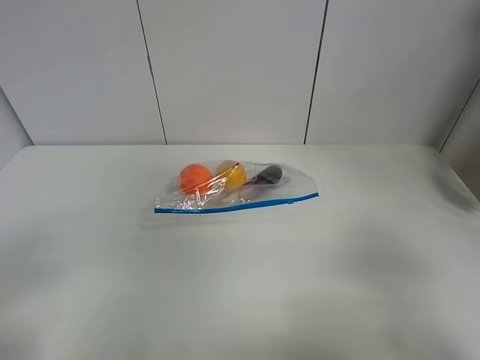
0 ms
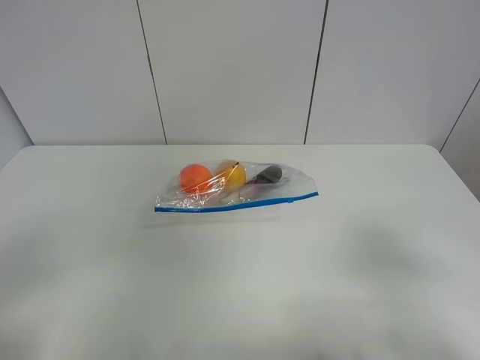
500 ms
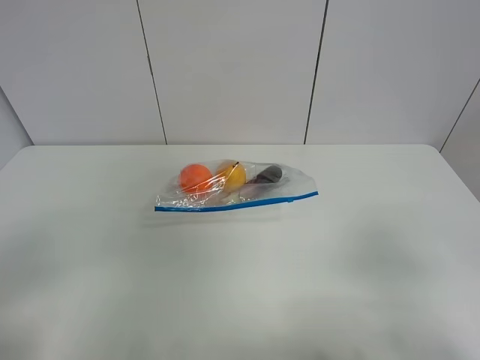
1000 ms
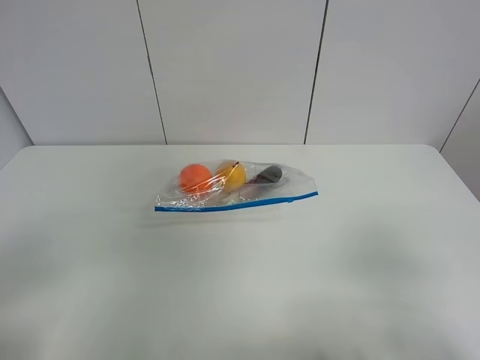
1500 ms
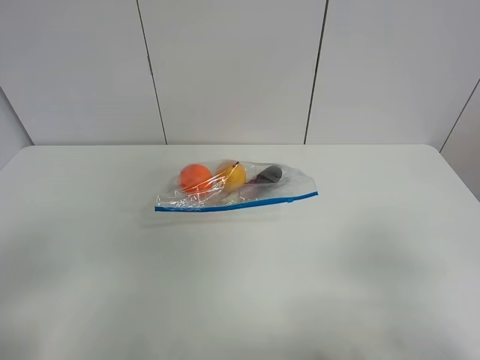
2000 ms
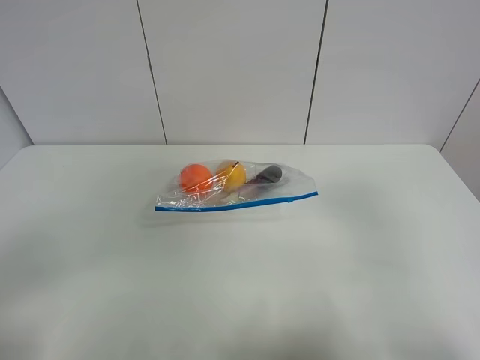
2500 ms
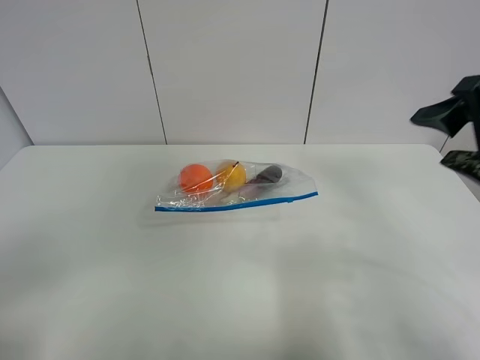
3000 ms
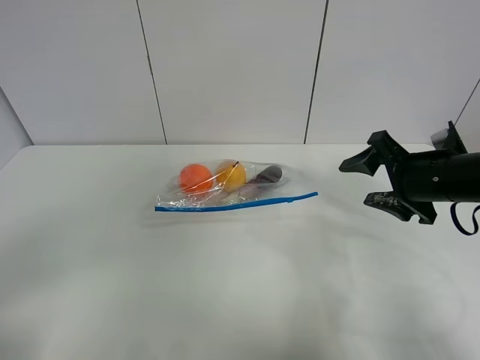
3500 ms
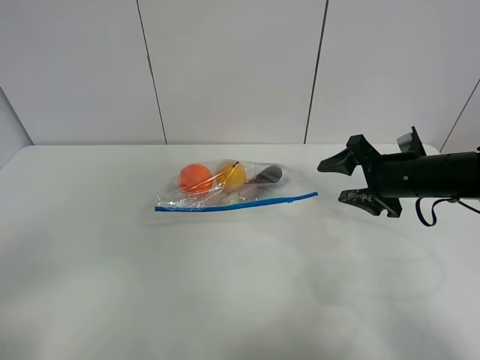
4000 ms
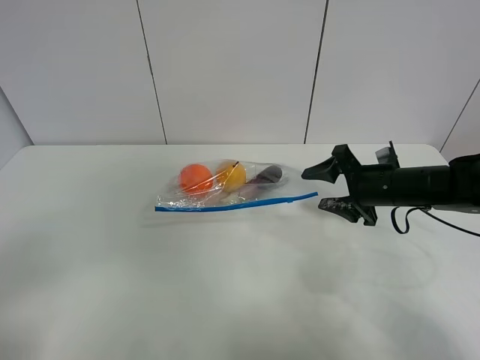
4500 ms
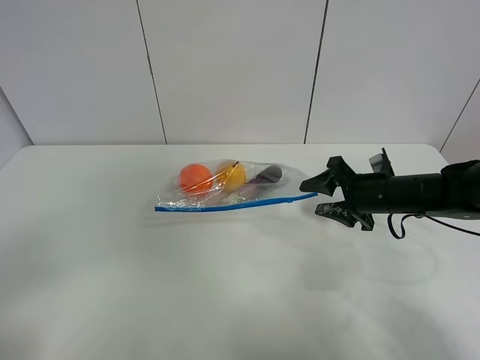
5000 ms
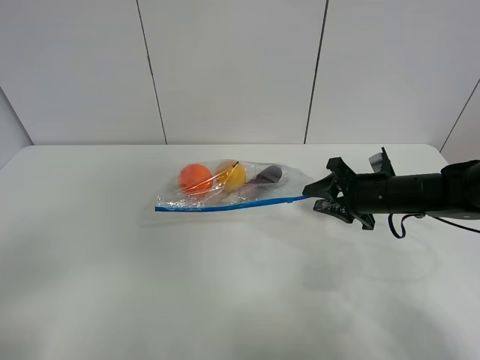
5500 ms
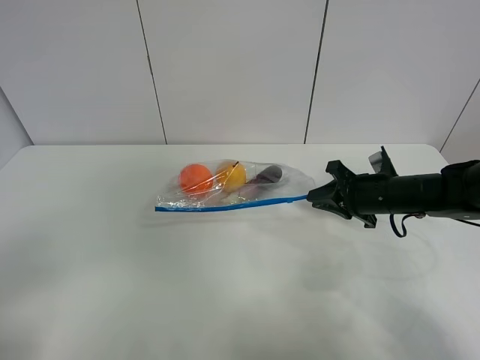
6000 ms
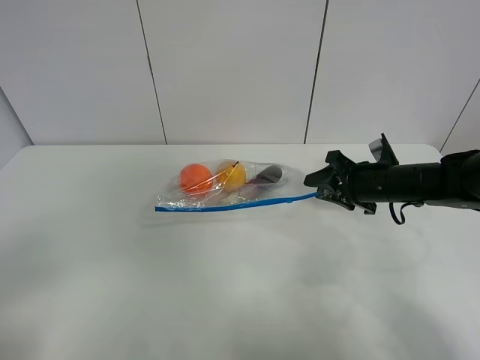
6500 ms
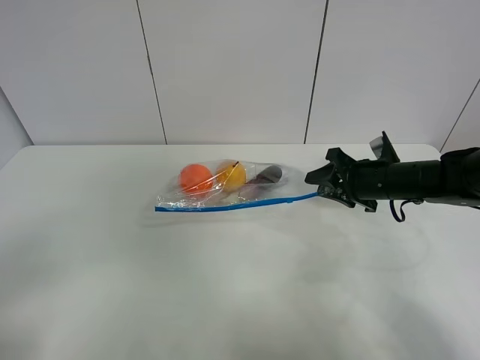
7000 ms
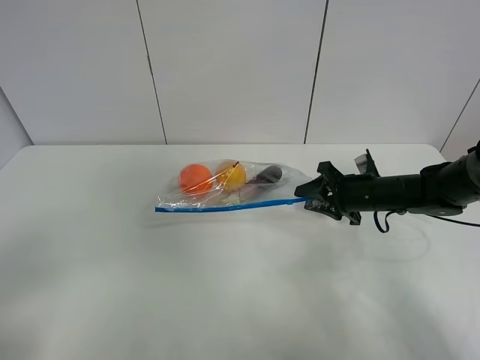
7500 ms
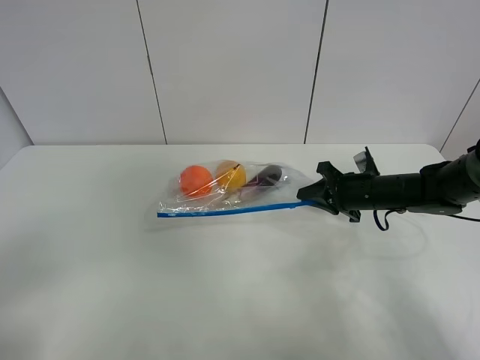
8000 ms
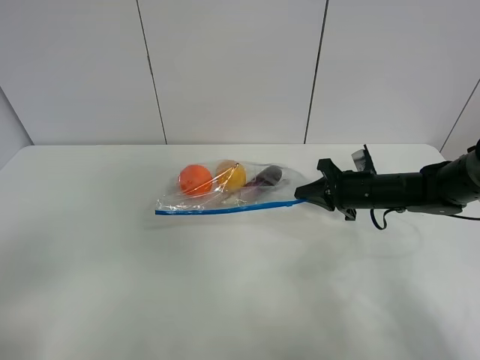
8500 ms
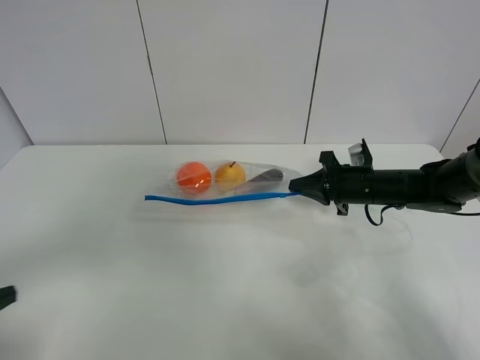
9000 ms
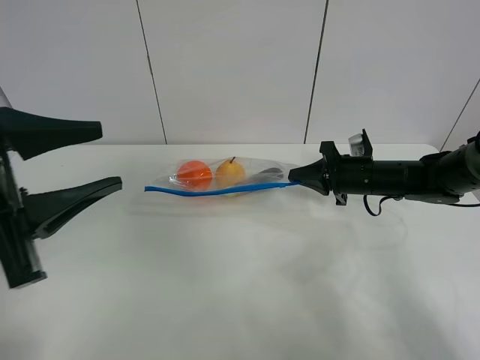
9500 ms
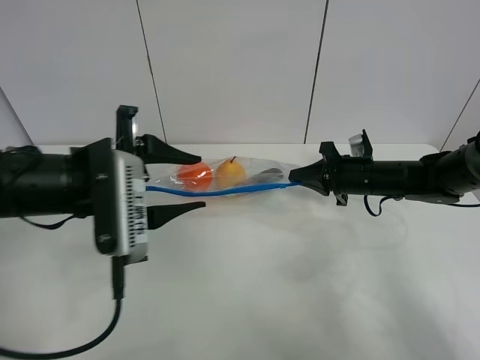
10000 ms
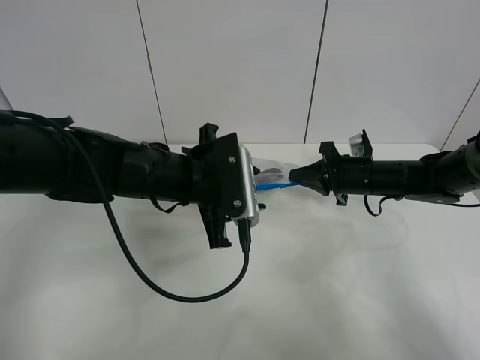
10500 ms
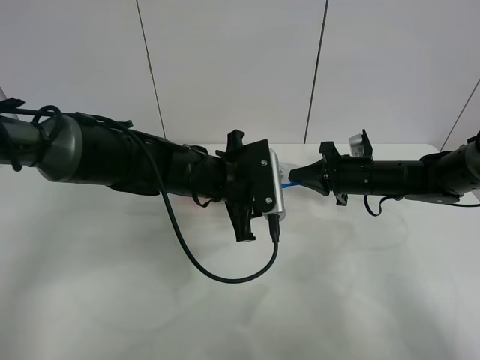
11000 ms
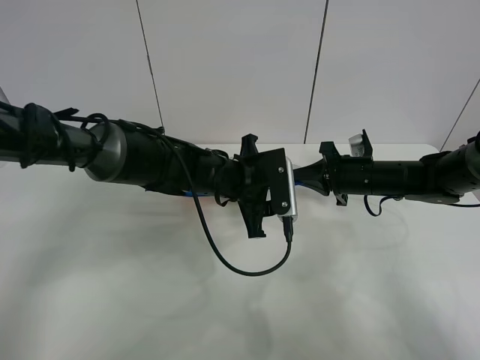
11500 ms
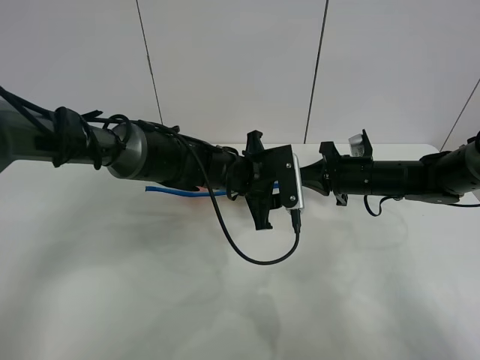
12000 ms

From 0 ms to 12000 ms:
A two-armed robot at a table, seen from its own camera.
Step, from 0 ms to 8000 ms: Grasp the fruit bag with right gripper.
From 2000 ms to 4000 ms: The right gripper heads forward, covering about 30 cm.
From 4000 ms to 6000 ms: The right gripper changes place by roughly 5 cm, and closes up.
From 6000 ms to 8000 ms: The grippers make only small movements.
From 8000 ms to 10000 ms: The left gripper shifts approximately 30 cm forward and to the right.
From 10000 ms to 12000 ms: The left gripper goes approximately 20 cm to the right, forward and downward.

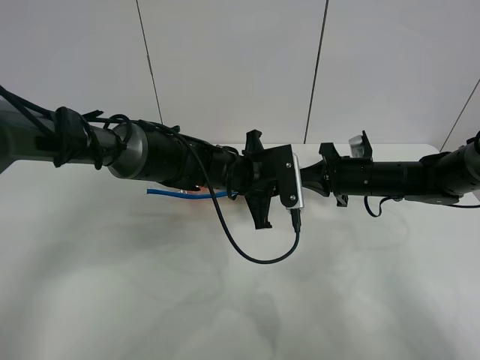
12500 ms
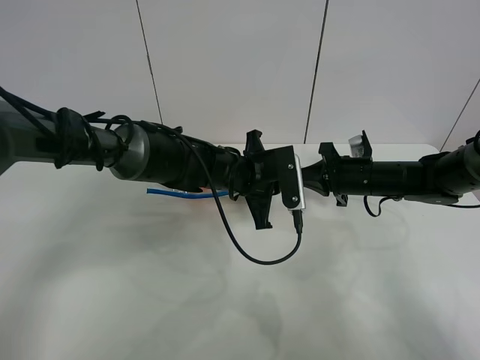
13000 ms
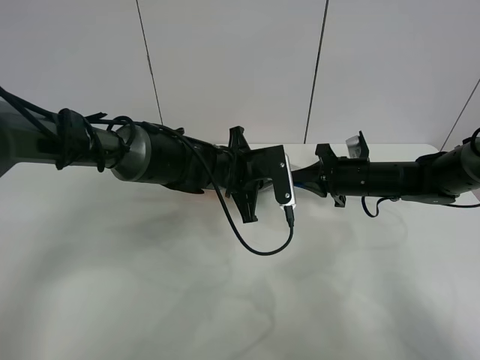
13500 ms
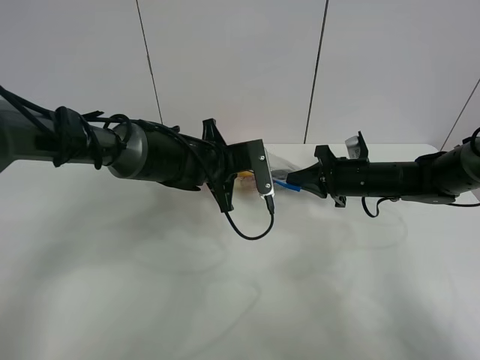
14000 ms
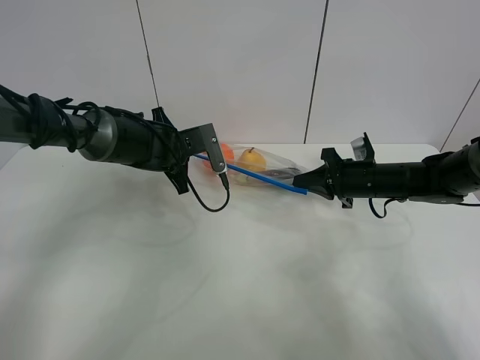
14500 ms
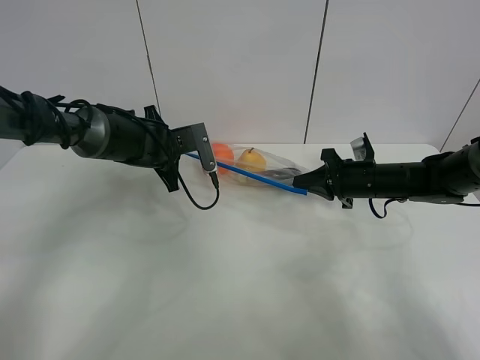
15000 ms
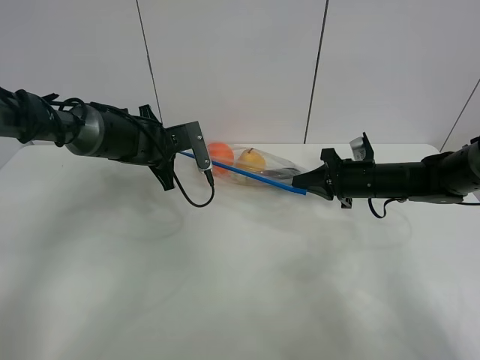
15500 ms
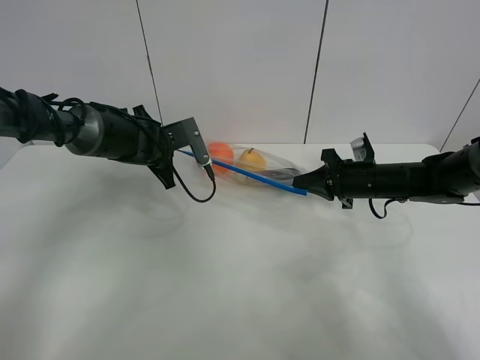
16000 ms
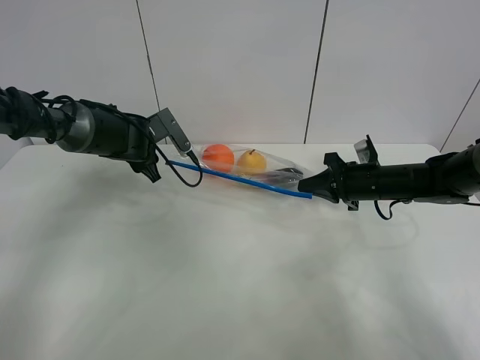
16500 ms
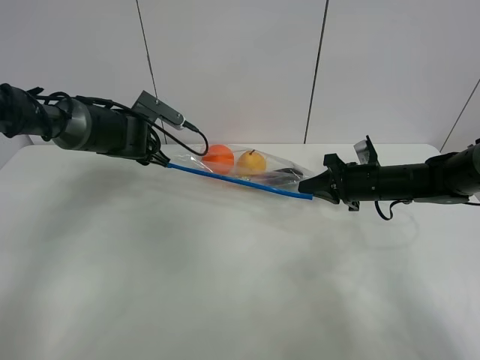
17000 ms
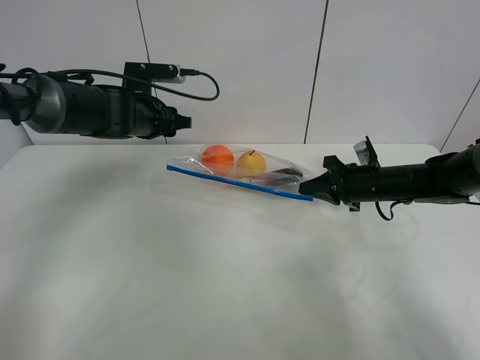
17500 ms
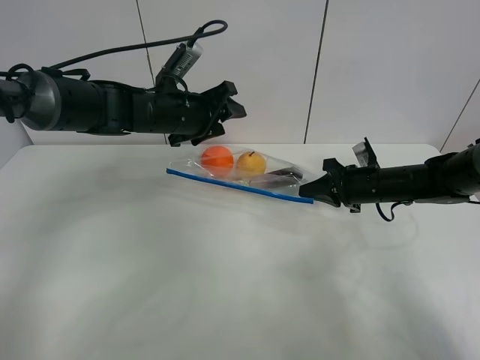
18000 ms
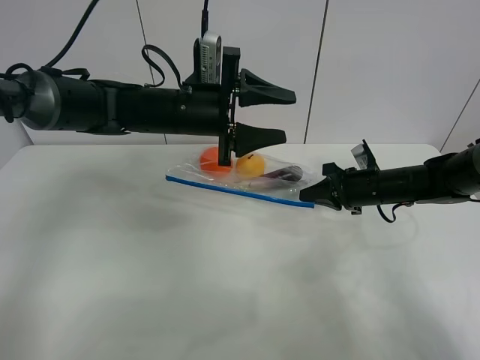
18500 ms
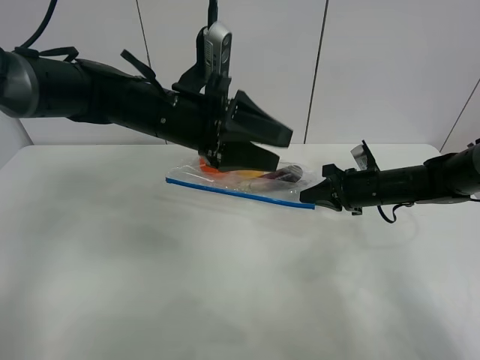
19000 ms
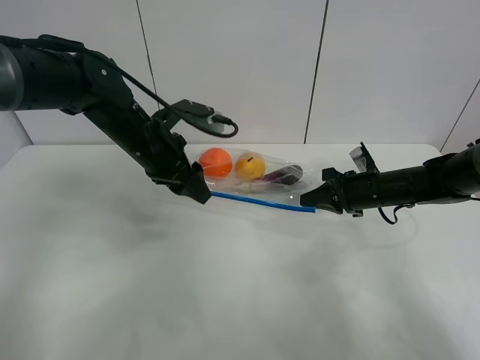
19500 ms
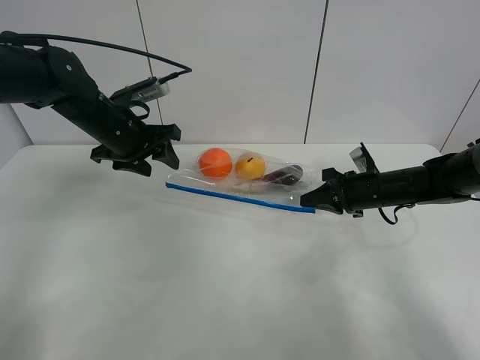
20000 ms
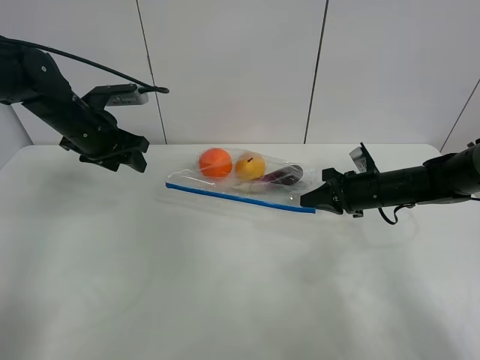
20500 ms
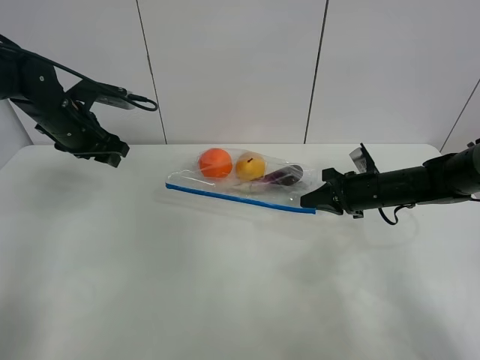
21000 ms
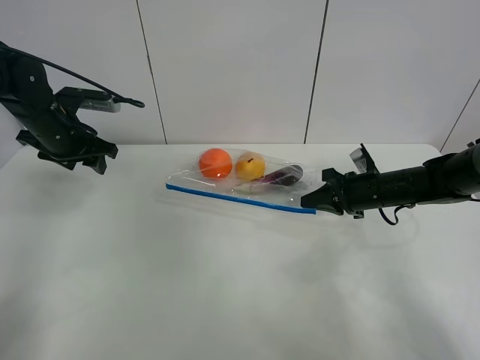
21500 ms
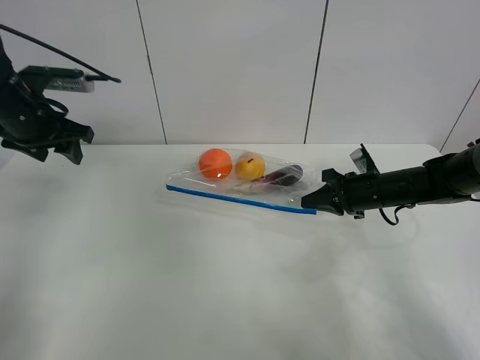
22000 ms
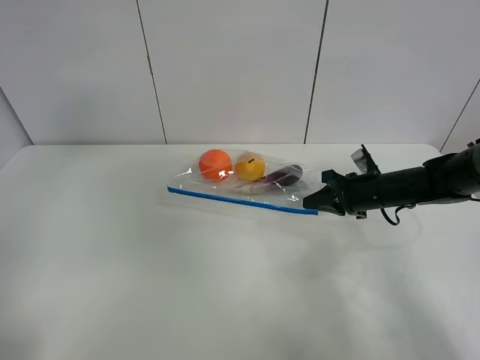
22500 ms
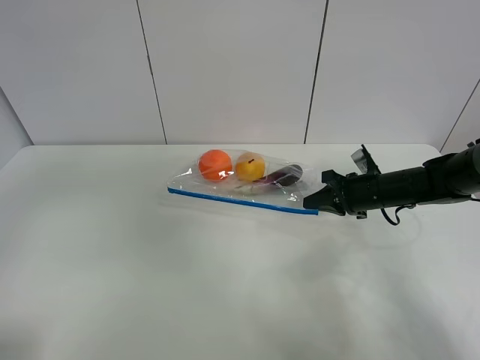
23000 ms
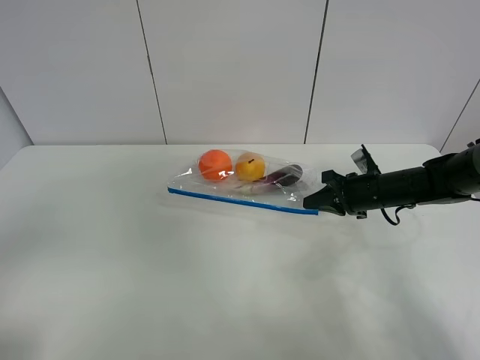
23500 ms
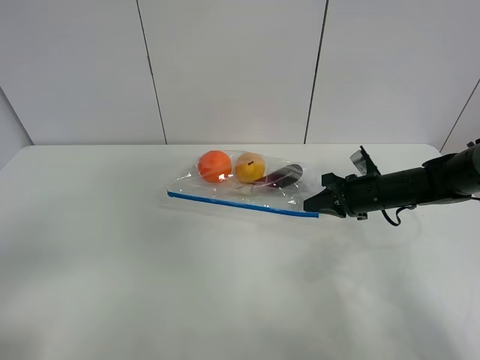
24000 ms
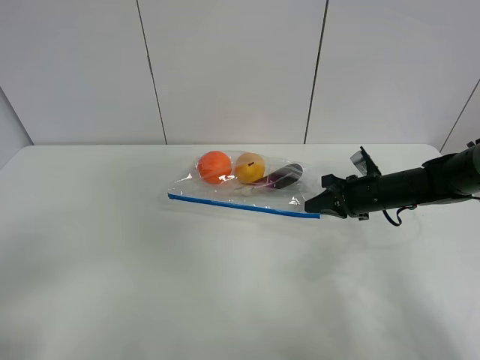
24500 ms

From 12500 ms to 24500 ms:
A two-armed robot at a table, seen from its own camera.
Step, from 12500 ms to 16000 ms: Pull the fruit bag with left gripper.
From 12500 ms to 14500 ms: The left gripper moves to the left and forward, some 15 cm.
From 14500 ms to 16500 ms: The left gripper goes roughly 5 cm to the left, and opens.
From 16500 ms to 18500 ms: The left gripper goes some 15 cm to the right, upward and backward.
From 18500 ms to 20500 ms: The left gripper moves to the left, roughly 15 cm.
From 20500 ms to 22500 ms: The left gripper travels upward and backward by approximately 30 cm.
From 22500 ms to 24500 ms: The left gripper goes about 25 cm backward and downward.

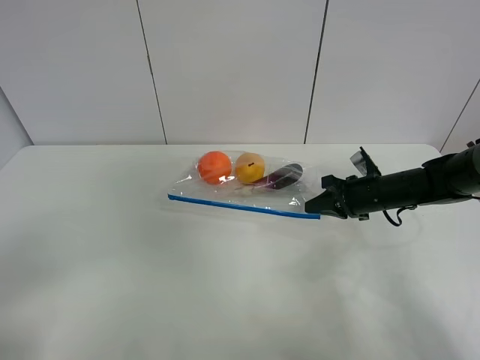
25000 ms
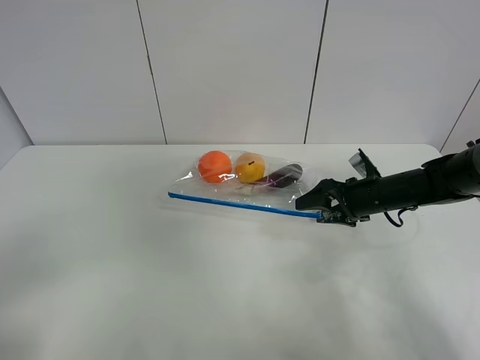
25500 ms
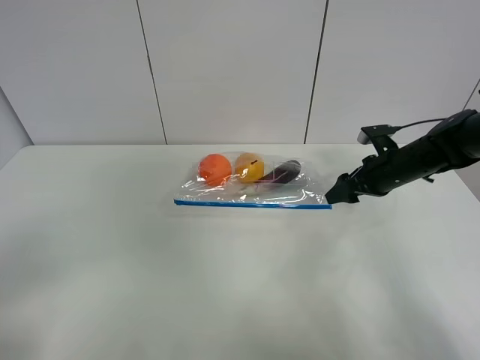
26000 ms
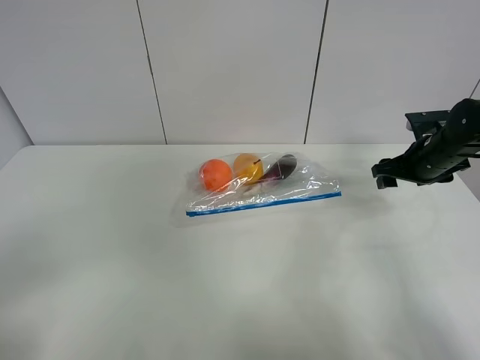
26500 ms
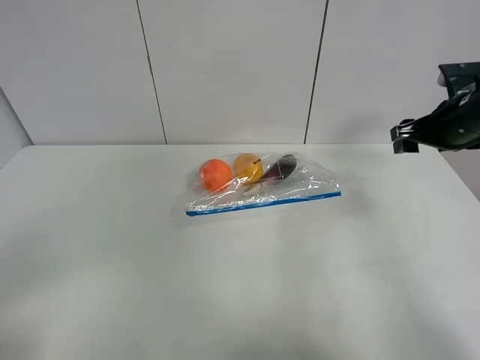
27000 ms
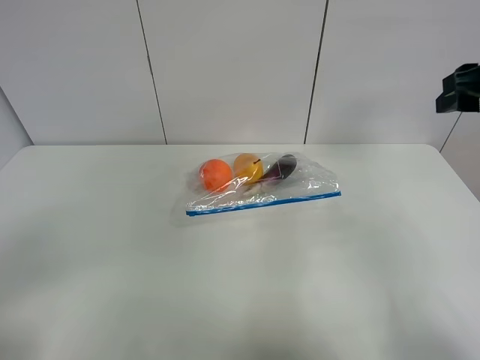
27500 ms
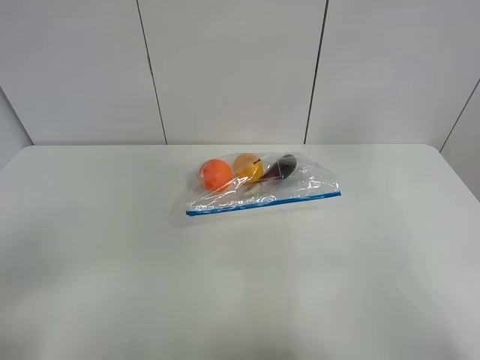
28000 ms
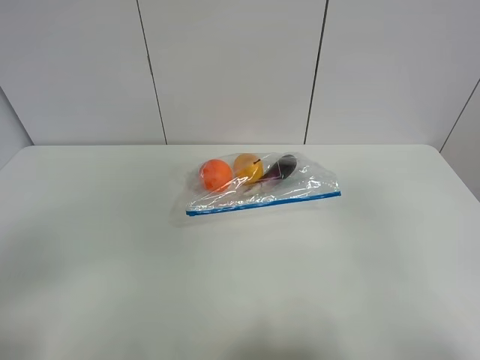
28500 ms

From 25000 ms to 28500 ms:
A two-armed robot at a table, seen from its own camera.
From 25000 ms to 27000 ms: The right gripper travels upward and to the right by about 20 cm, and opens up.
From 27000 ms to 28500 ms: The right gripper moves backward, approximately 35 cm.
